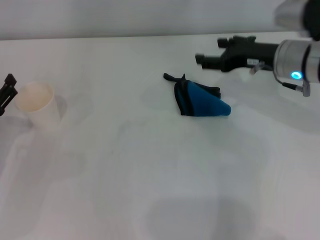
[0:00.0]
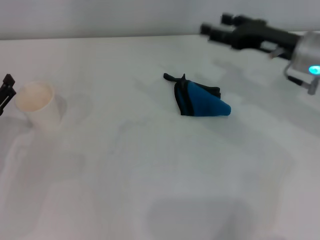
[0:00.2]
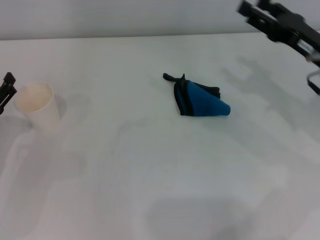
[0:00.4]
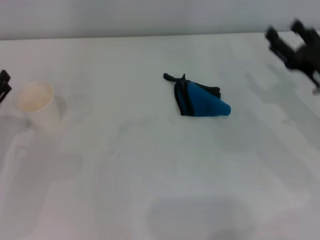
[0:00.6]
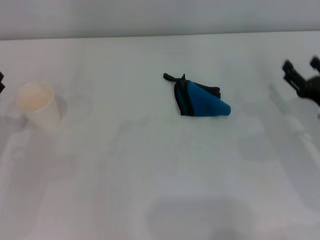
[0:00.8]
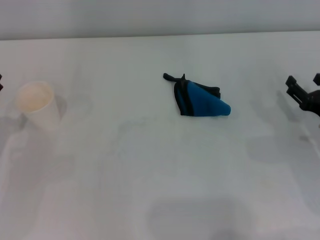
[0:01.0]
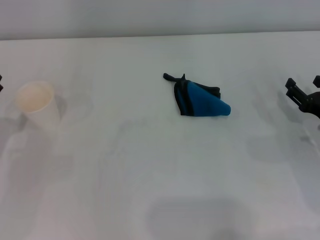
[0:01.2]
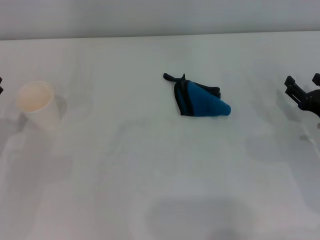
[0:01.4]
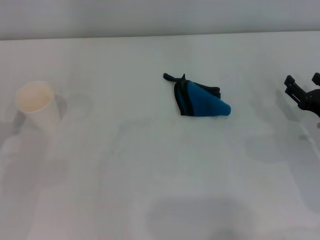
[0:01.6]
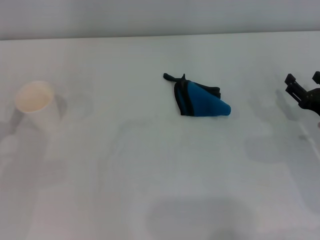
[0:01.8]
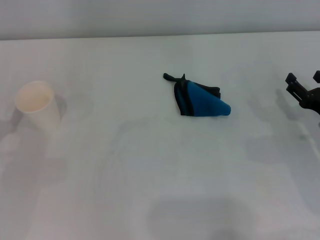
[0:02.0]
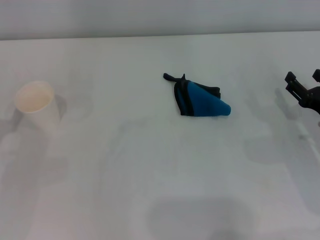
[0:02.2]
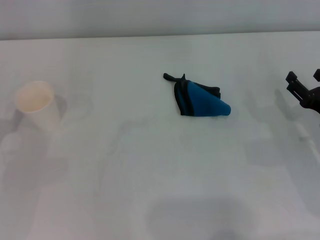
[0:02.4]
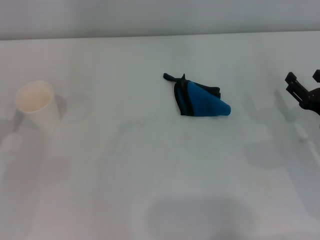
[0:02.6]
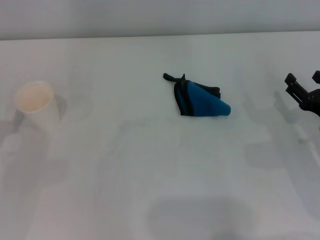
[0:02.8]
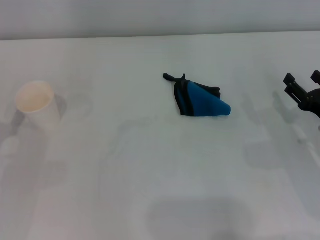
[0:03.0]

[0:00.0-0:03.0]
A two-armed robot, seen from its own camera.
0:00.0 to 0:01.6: The right gripper shifts approximately 20 cm downward, backward and to the right.
0:01.6 to 0:03.0: Both grippers stay put.
